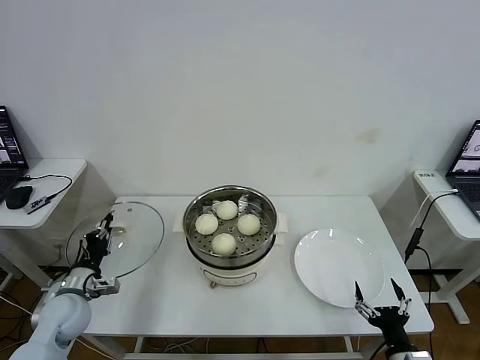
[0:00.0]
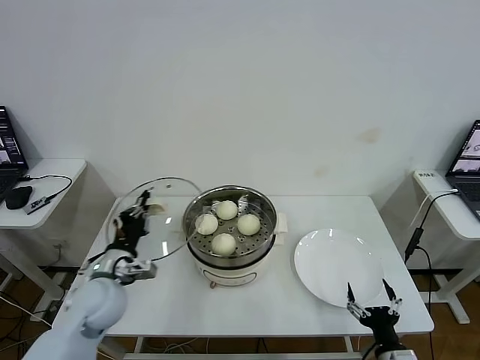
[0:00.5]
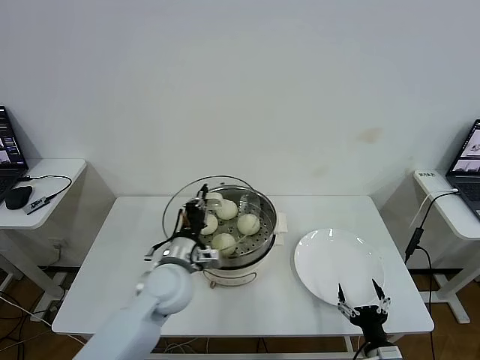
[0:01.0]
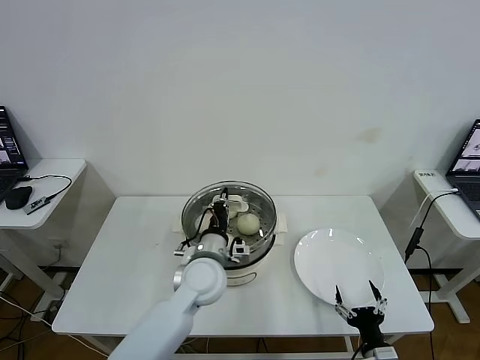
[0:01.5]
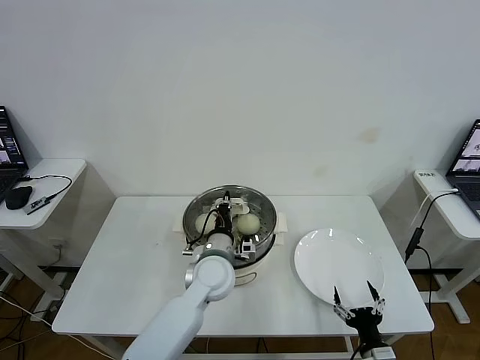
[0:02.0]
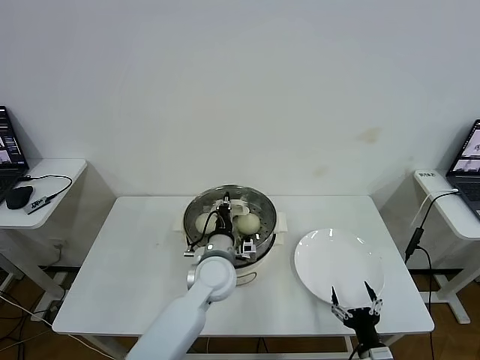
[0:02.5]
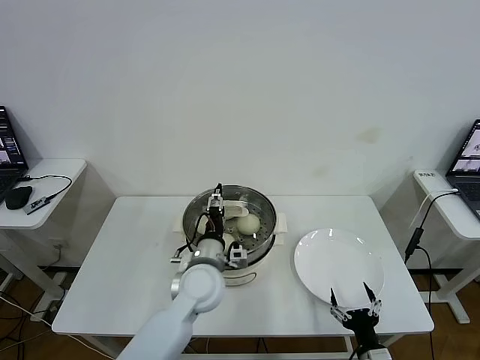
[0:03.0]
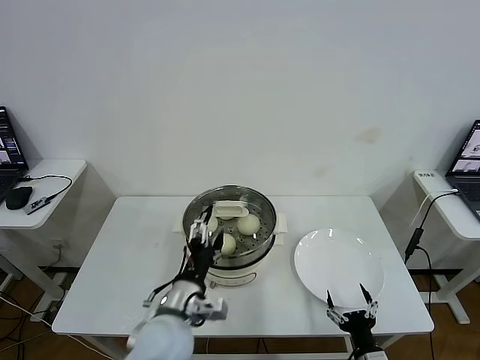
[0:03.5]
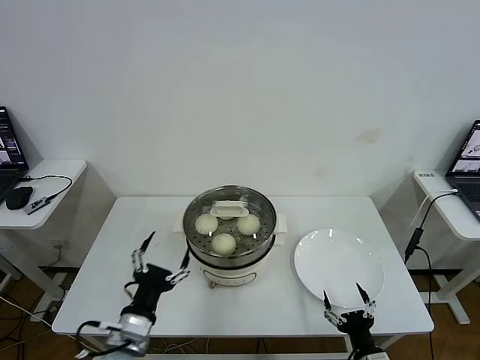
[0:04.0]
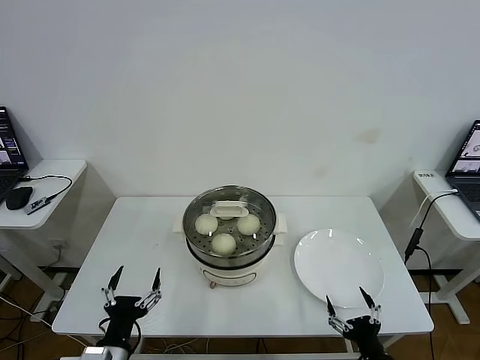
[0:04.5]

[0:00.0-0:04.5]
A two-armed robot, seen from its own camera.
Task of the whole recording: take steamed baozi put them in steamer then cover it.
Step, 0:00.0 to 0:02.5: Place the pot lid on the steamer with left gripper.
0:00.0 to 0:02.0: The left gripper heads to the right, covering roughly 35 cm; the right gripper shifts by some 5 cm.
0:02.0 to 0:04.5: The left gripper is displaced backward and to the left by roughly 30 cm, and opens its fingers.
